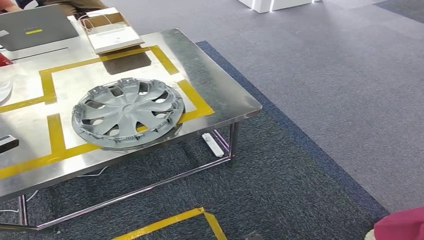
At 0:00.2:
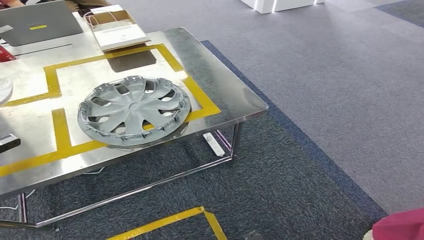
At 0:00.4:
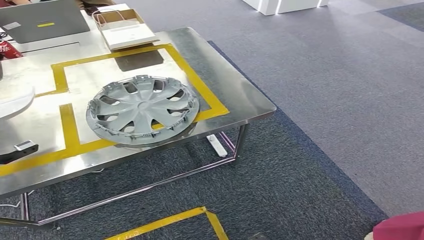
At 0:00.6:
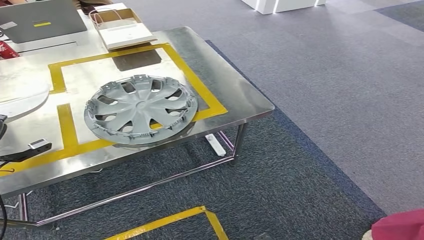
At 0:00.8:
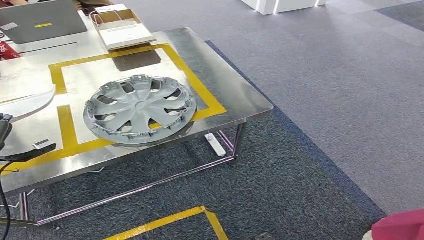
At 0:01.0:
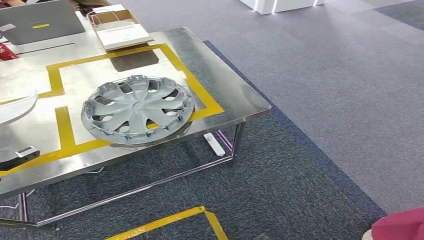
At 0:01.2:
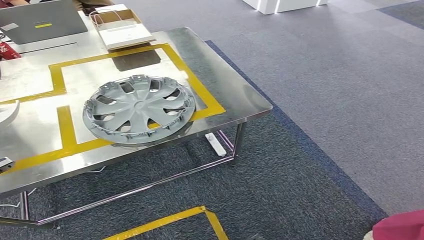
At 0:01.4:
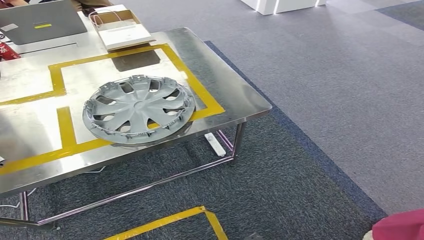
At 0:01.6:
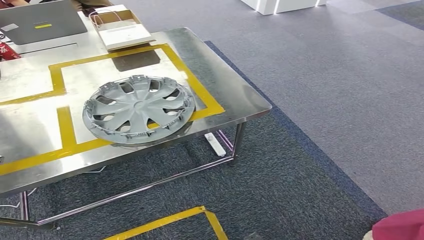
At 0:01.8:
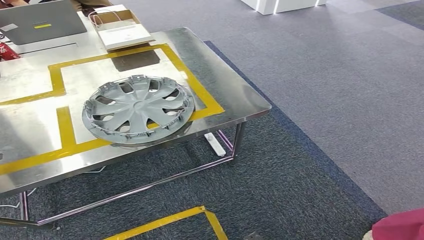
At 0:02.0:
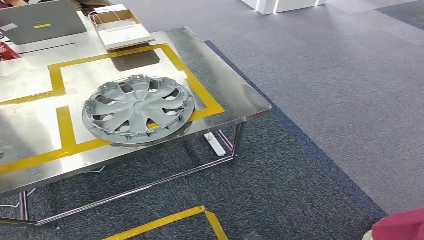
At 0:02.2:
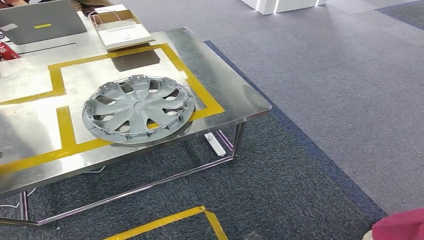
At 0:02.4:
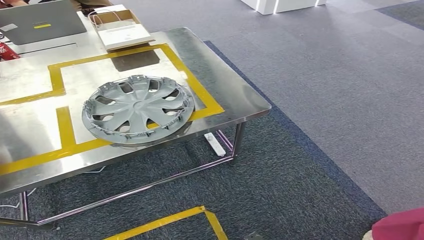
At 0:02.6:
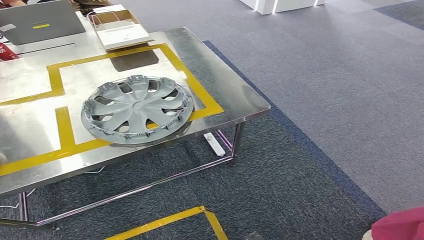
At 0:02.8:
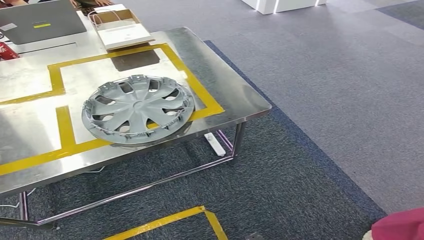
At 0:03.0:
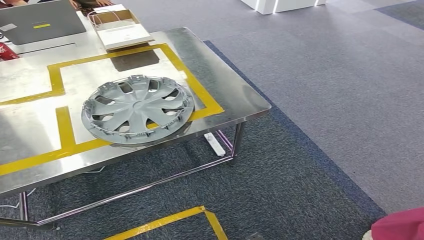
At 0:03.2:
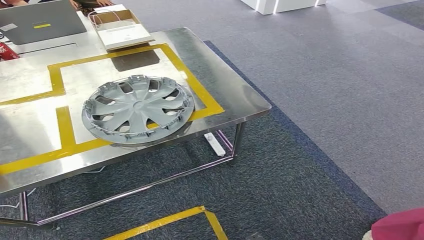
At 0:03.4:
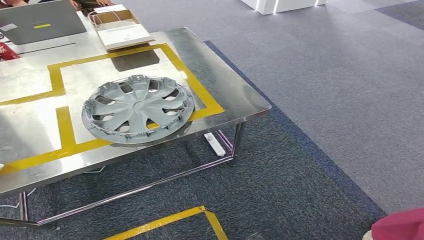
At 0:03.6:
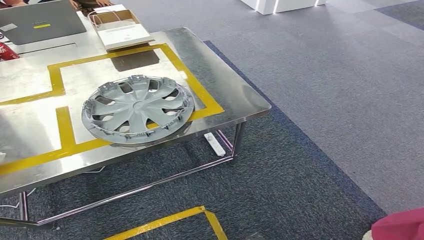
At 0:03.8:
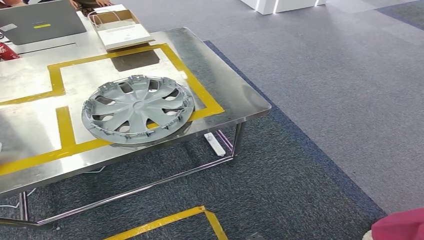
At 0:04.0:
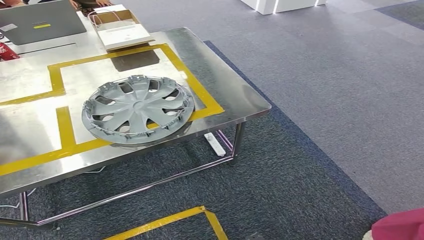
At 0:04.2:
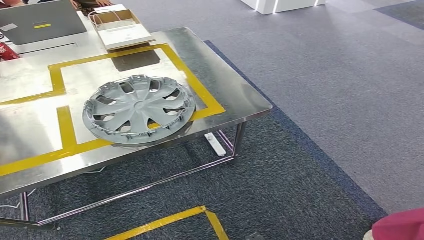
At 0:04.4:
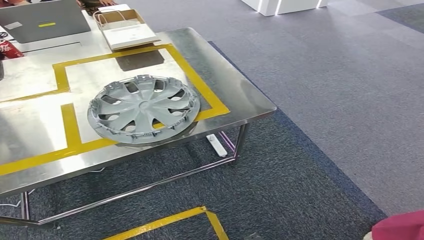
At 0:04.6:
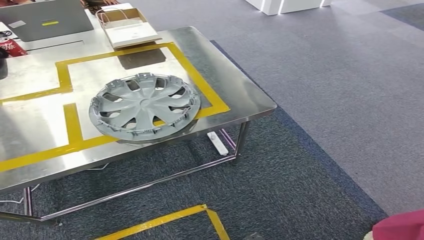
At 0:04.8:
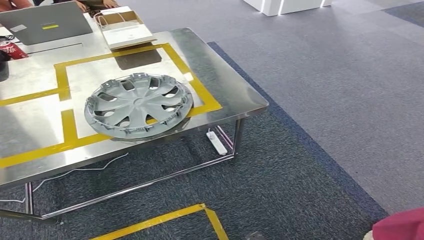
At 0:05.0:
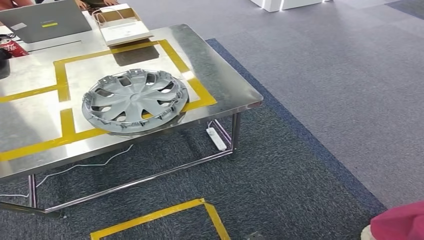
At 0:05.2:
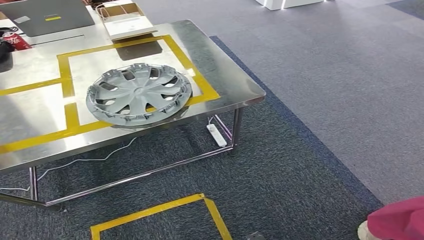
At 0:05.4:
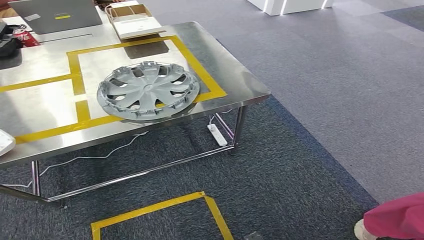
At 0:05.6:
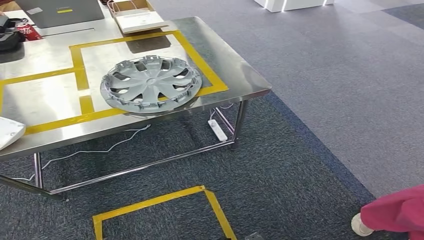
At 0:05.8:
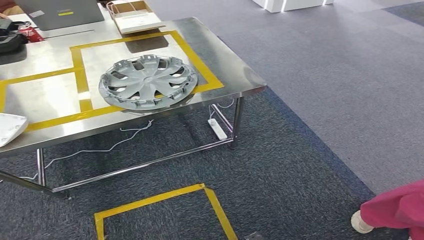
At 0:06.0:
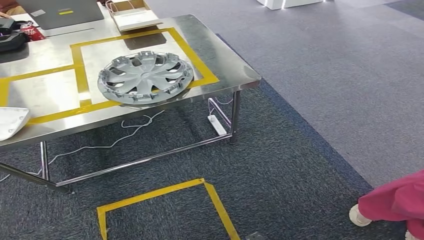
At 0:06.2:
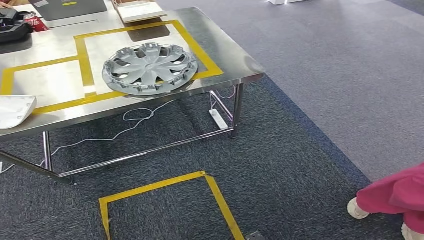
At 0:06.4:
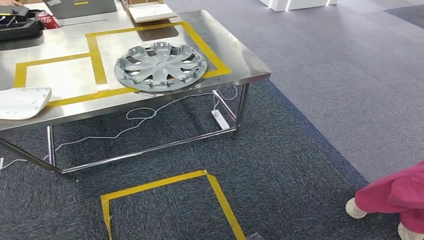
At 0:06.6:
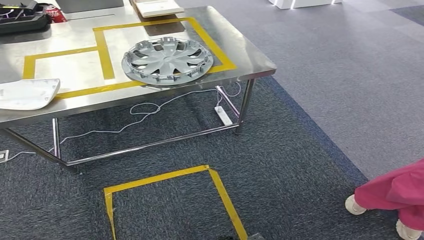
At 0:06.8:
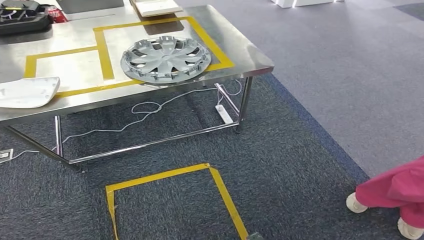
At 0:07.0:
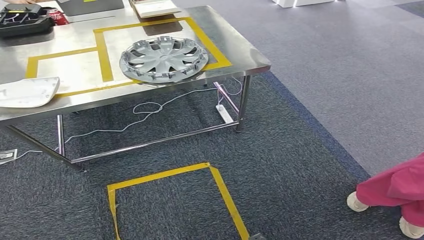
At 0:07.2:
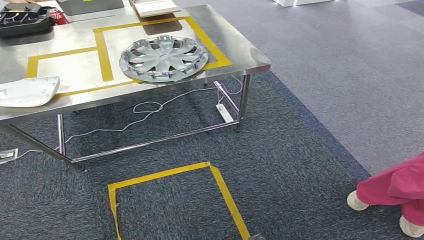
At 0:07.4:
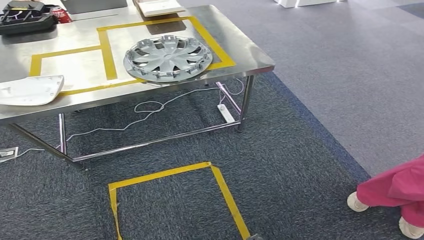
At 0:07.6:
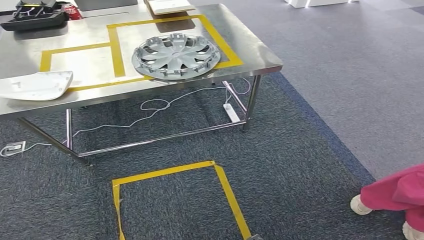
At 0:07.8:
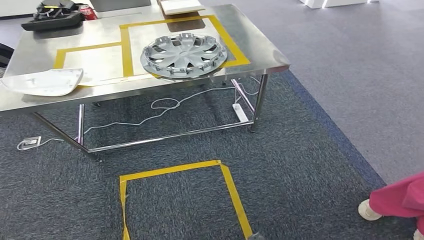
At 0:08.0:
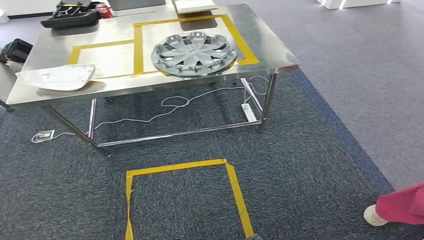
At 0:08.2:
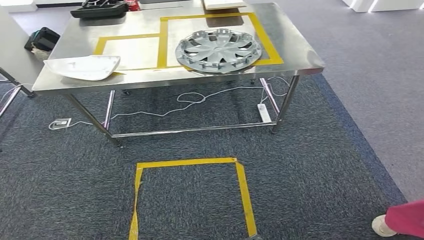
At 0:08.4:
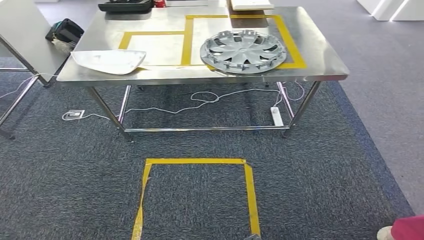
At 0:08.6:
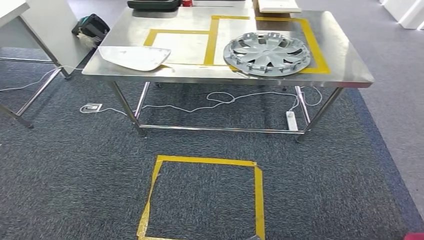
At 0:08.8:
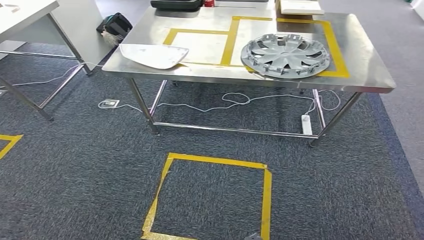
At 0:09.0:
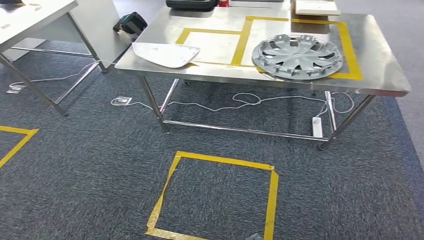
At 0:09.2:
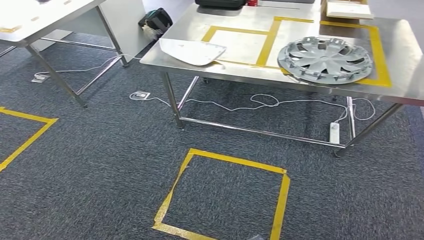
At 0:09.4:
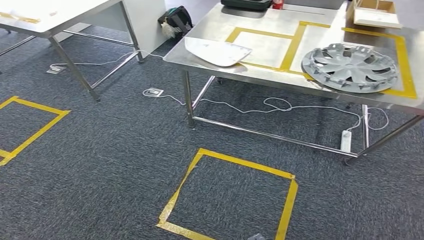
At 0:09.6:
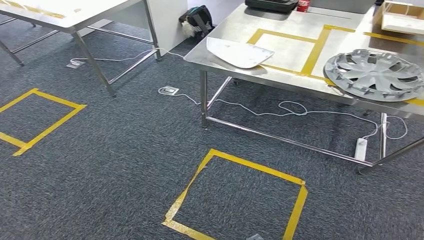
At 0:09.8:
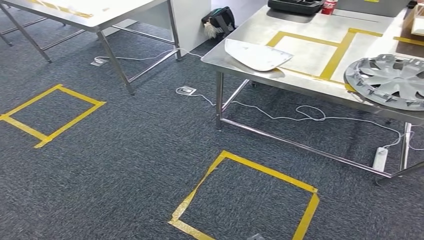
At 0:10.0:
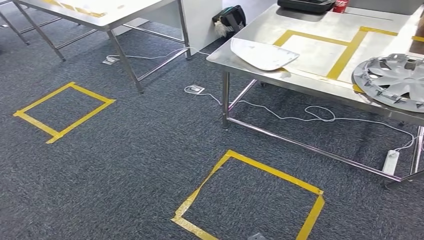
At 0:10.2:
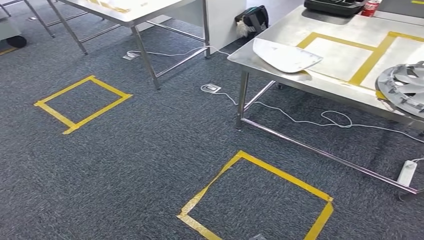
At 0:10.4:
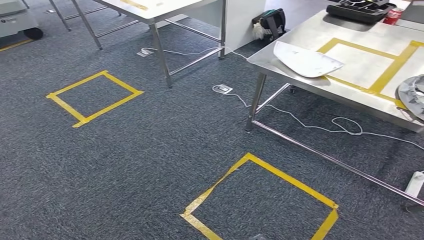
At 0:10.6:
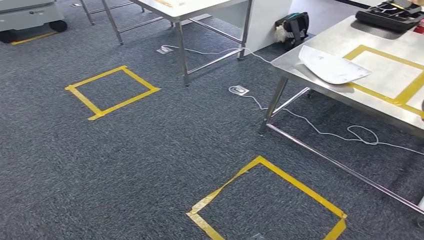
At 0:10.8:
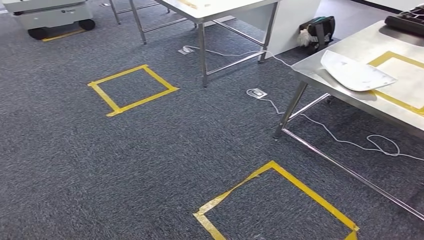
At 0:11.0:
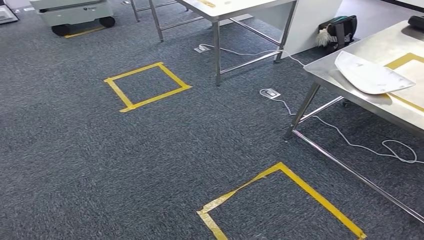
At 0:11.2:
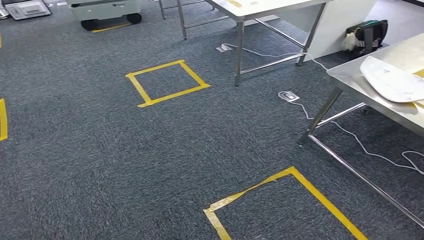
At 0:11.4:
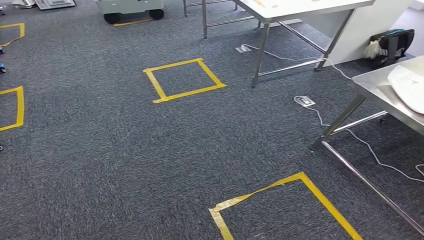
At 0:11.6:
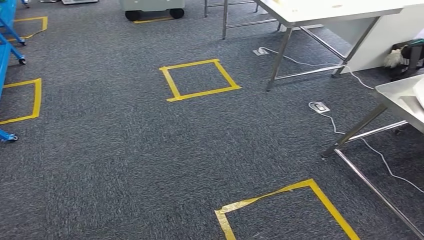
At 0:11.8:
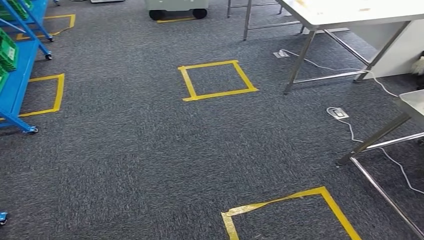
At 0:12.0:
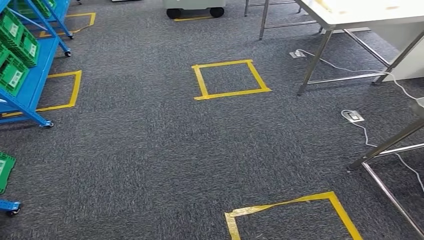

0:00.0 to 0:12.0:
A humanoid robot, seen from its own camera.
Step, 0:00.0 to 0:06.8: Insert the small component into the corresponding slot on the workbench.
0:00.0 to 0:01.6: The left hand travels backward by roughly 5 cm, and goes to the right and returns, some 5 cm each way.
0:01.6 to 0:03.0: The left hand heads to the left and backward, covering about 10 cm.
0:03.0 to 0:04.4: There are only small adjustments of the hands.

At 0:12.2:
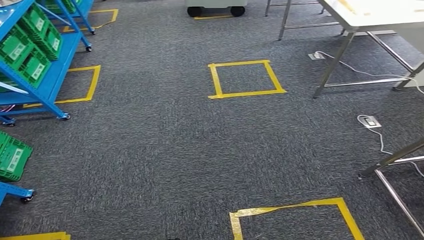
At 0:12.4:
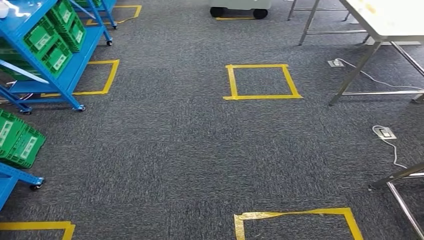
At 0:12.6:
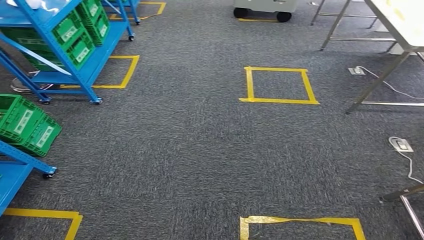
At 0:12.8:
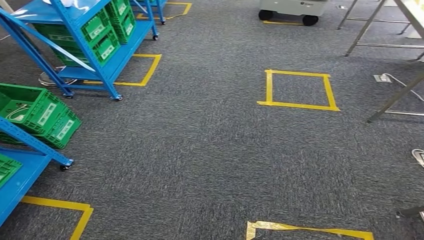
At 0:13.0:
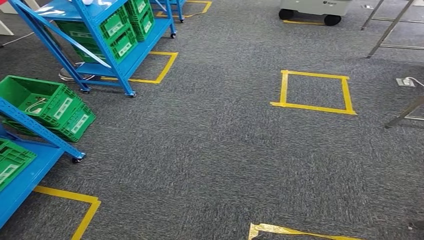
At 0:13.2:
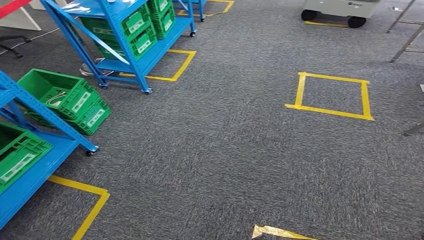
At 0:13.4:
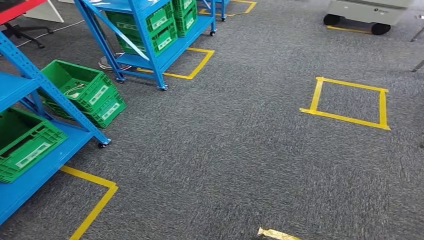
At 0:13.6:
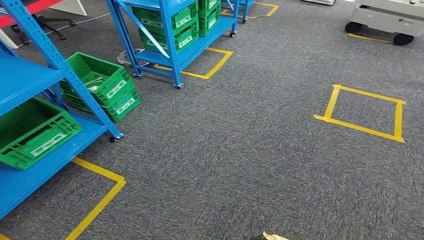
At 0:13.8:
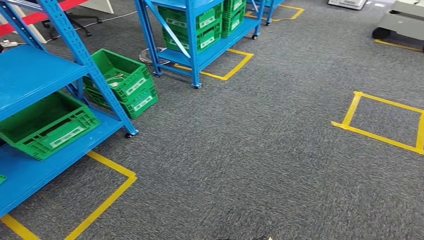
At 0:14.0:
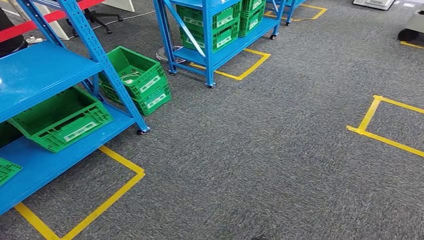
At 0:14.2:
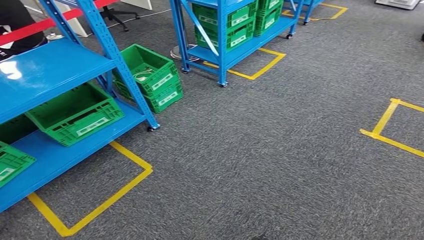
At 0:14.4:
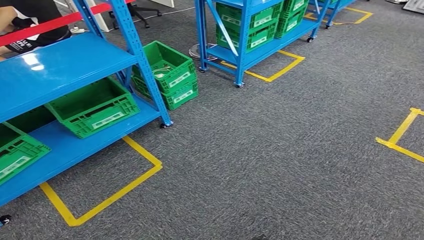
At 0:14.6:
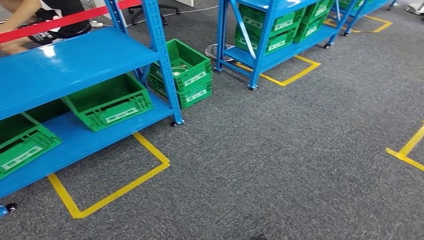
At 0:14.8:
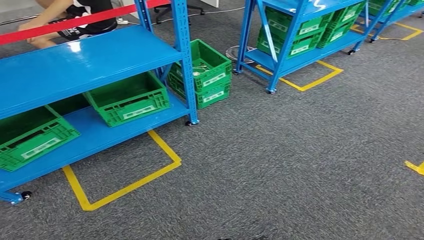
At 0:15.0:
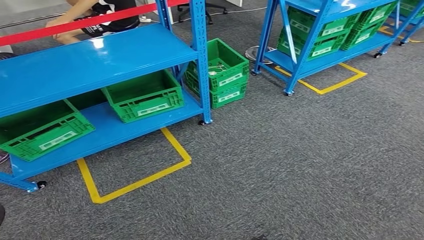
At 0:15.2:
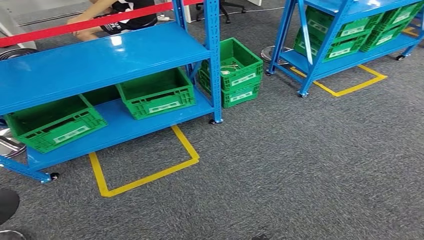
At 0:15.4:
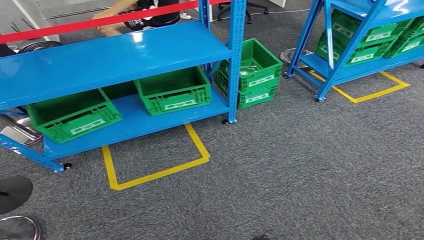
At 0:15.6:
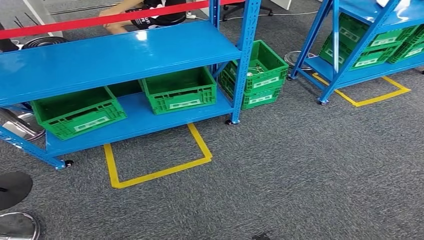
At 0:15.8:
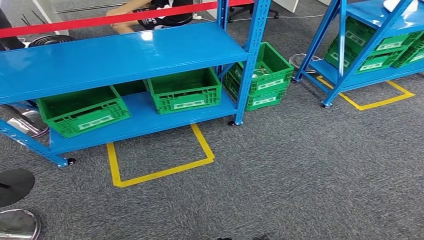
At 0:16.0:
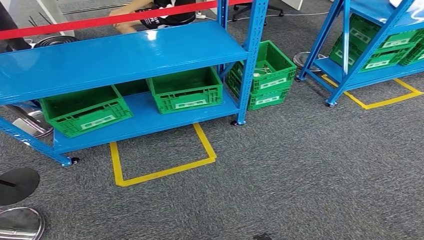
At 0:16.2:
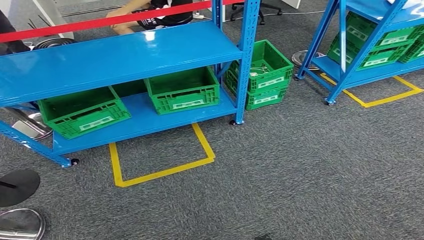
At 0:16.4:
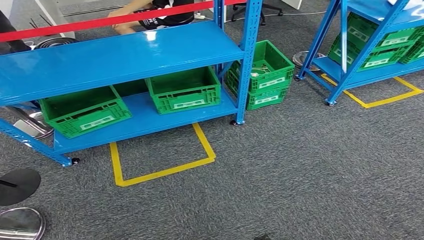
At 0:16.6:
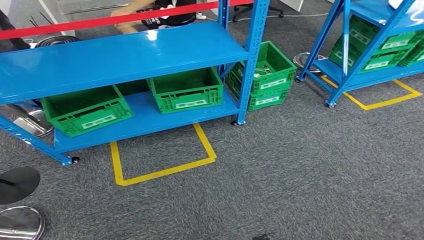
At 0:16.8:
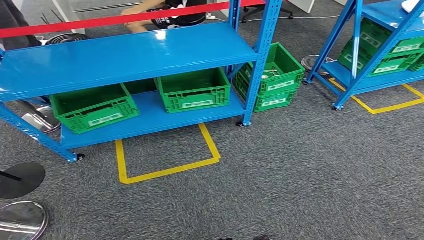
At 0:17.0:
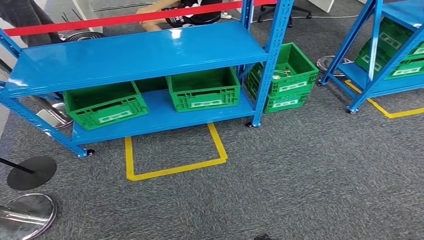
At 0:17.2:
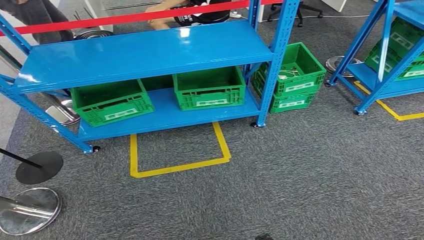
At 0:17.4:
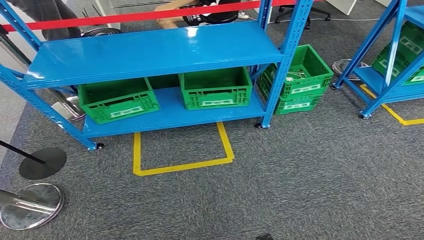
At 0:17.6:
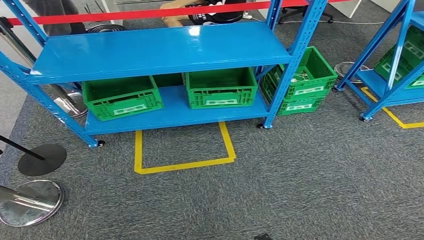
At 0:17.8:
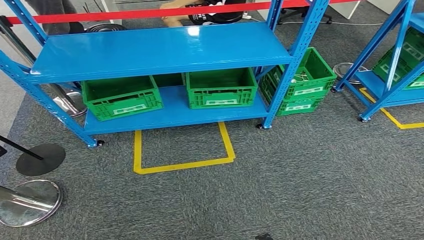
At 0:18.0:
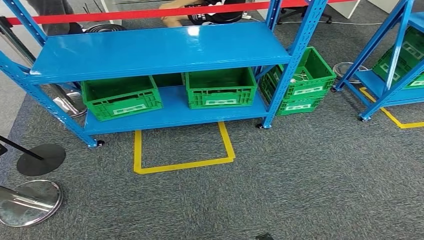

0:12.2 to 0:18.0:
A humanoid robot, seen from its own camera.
Step, 0:12.2 to 0:18.0: Return to the initial position at the workbench.
